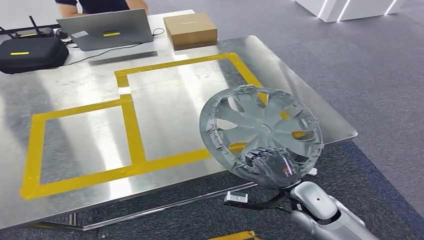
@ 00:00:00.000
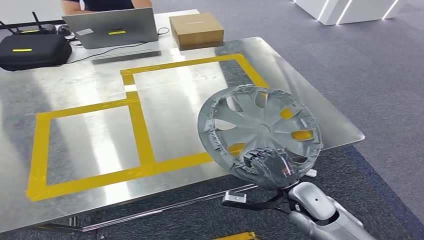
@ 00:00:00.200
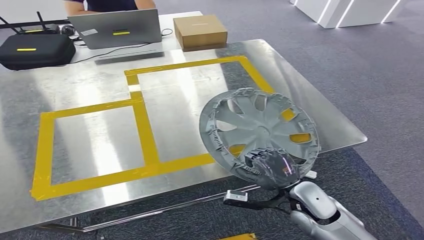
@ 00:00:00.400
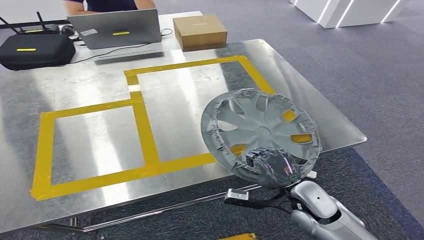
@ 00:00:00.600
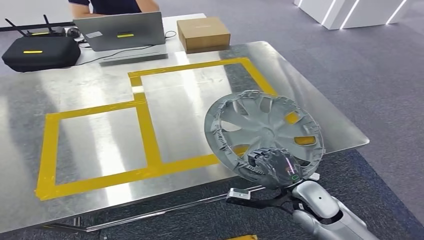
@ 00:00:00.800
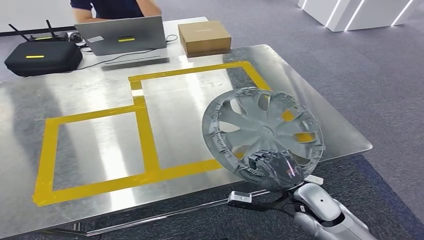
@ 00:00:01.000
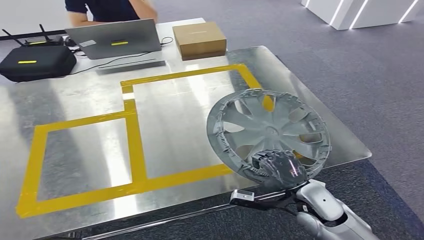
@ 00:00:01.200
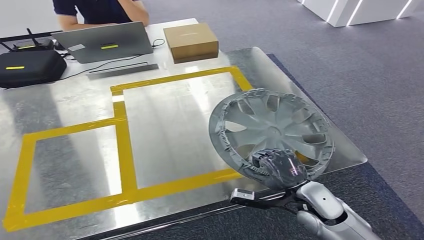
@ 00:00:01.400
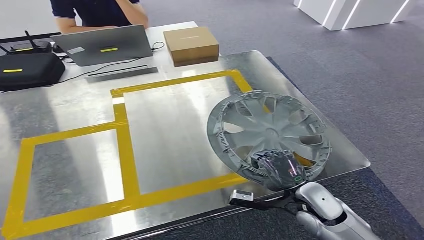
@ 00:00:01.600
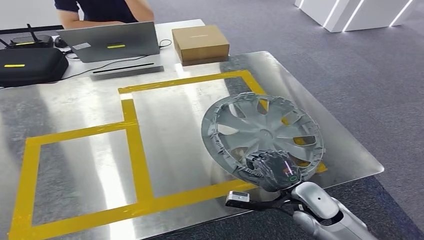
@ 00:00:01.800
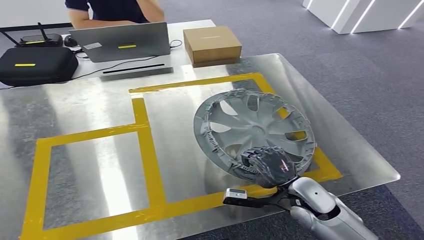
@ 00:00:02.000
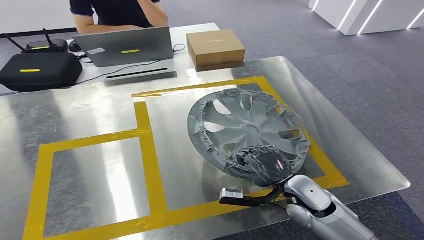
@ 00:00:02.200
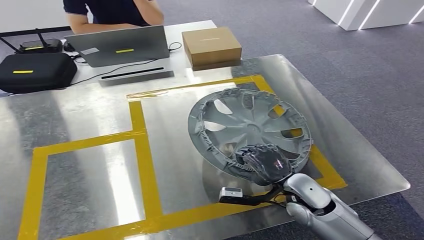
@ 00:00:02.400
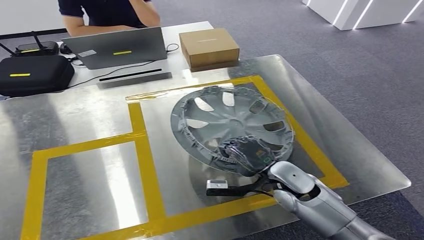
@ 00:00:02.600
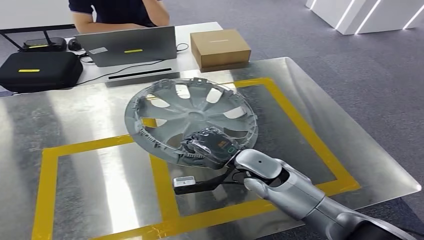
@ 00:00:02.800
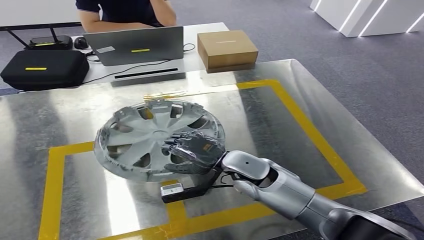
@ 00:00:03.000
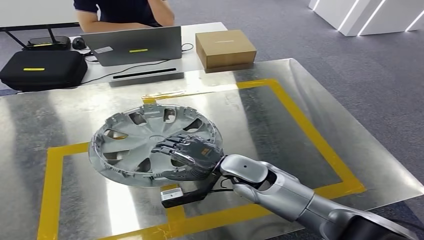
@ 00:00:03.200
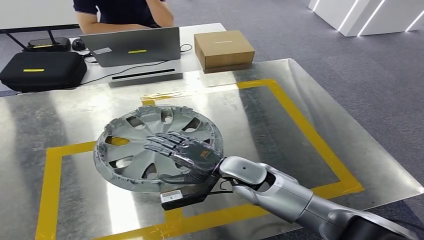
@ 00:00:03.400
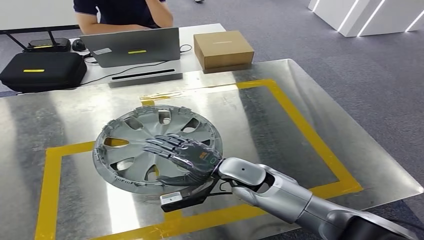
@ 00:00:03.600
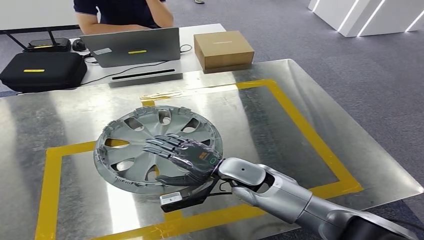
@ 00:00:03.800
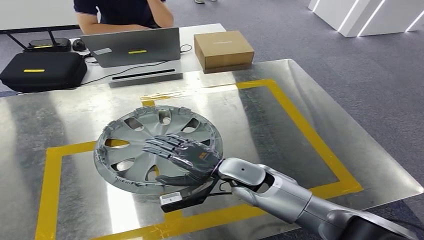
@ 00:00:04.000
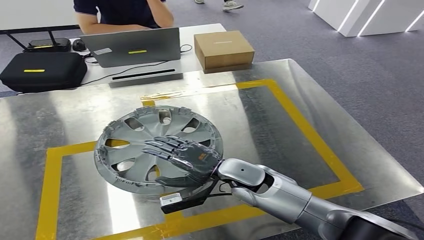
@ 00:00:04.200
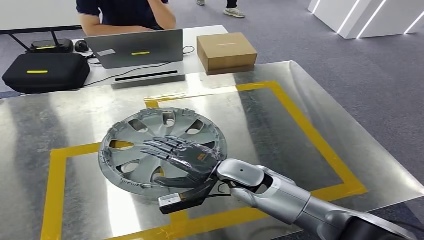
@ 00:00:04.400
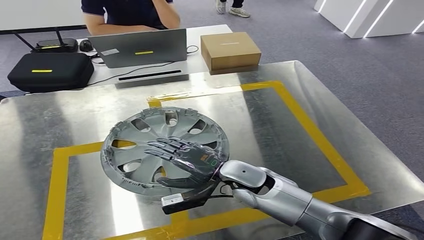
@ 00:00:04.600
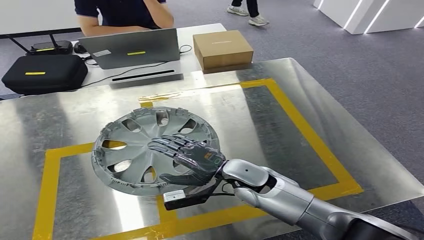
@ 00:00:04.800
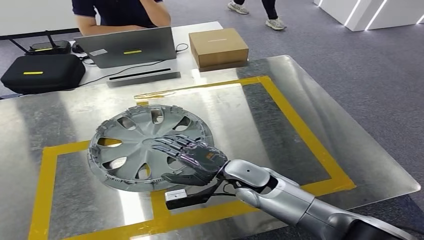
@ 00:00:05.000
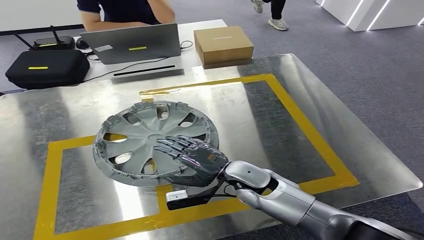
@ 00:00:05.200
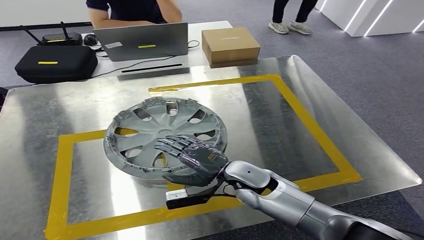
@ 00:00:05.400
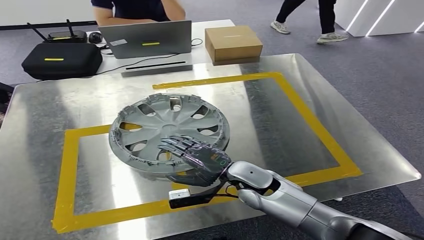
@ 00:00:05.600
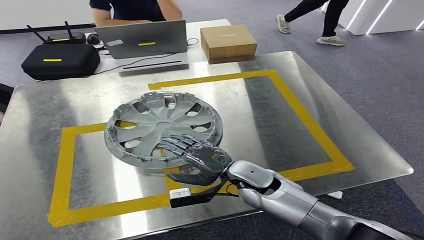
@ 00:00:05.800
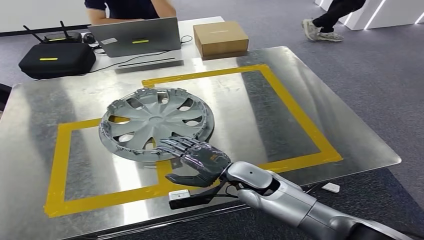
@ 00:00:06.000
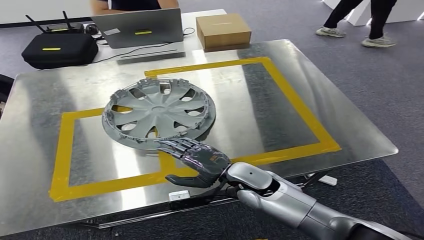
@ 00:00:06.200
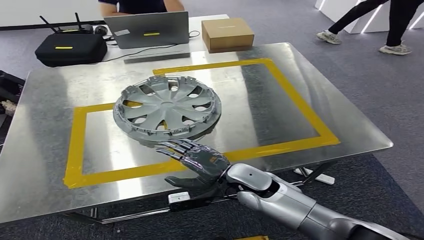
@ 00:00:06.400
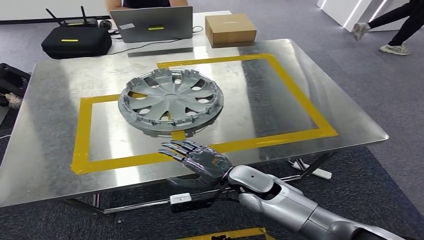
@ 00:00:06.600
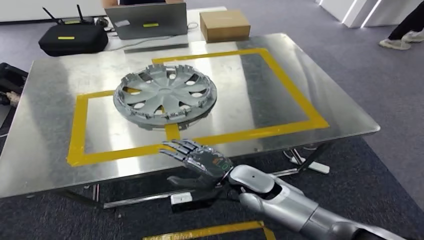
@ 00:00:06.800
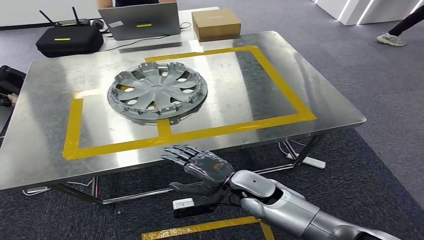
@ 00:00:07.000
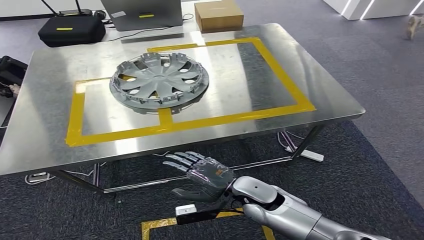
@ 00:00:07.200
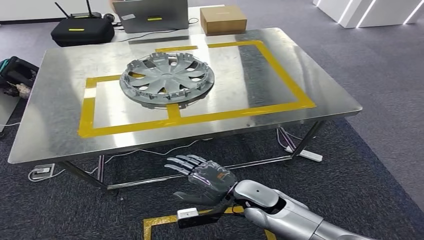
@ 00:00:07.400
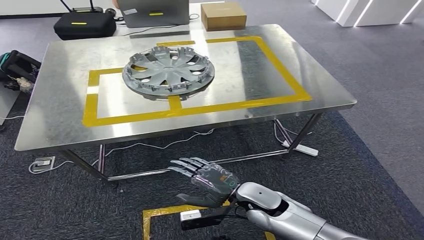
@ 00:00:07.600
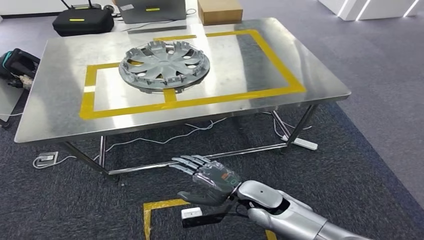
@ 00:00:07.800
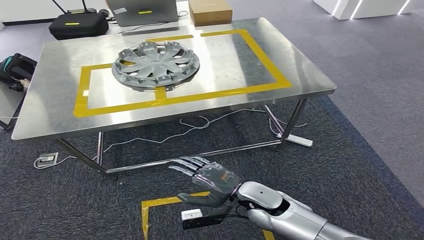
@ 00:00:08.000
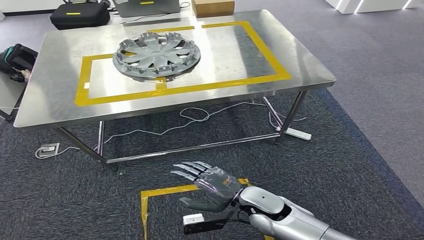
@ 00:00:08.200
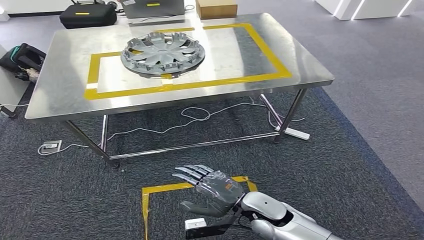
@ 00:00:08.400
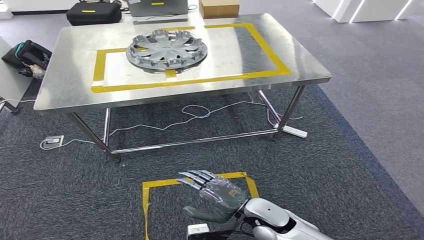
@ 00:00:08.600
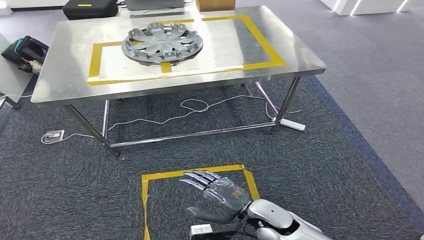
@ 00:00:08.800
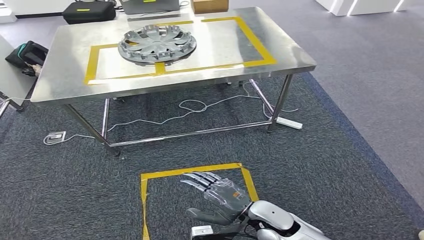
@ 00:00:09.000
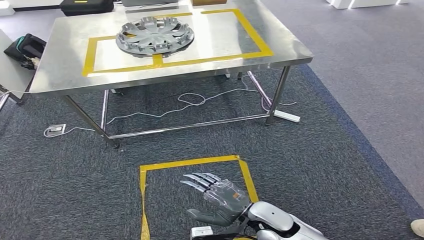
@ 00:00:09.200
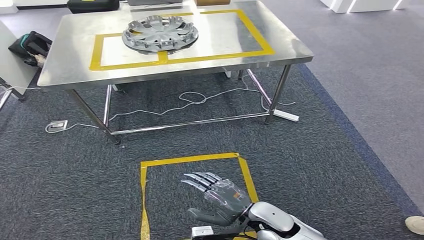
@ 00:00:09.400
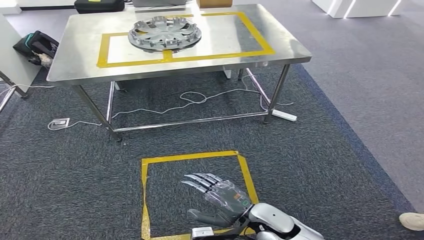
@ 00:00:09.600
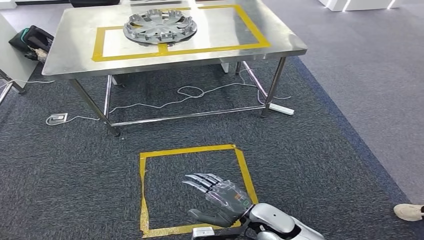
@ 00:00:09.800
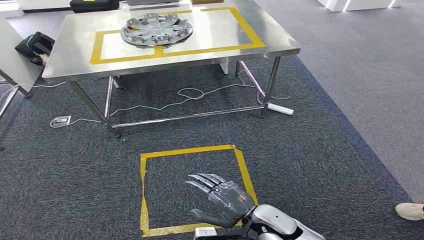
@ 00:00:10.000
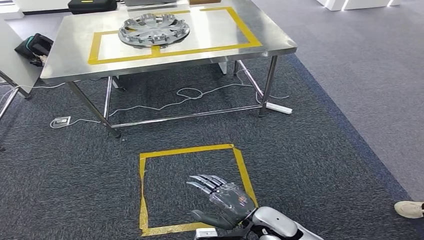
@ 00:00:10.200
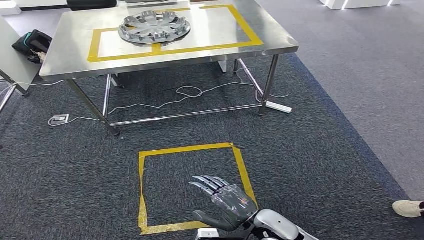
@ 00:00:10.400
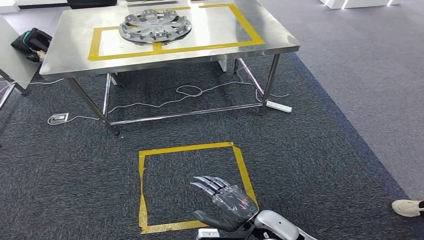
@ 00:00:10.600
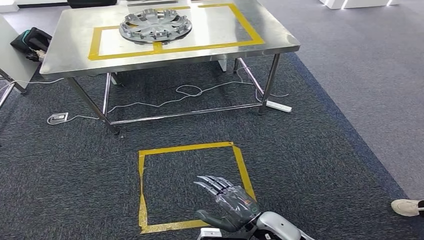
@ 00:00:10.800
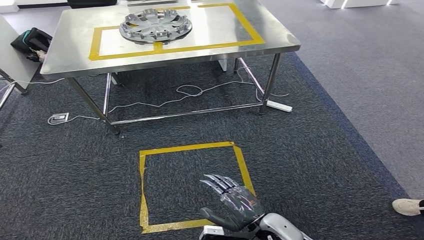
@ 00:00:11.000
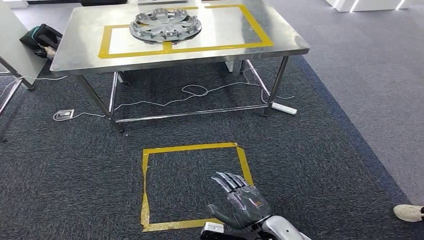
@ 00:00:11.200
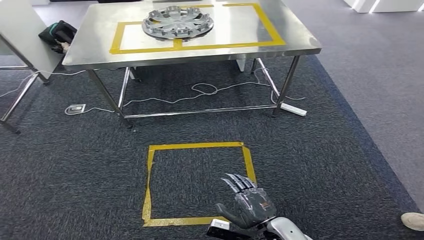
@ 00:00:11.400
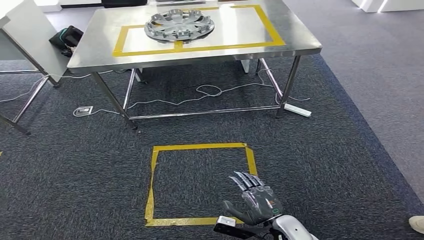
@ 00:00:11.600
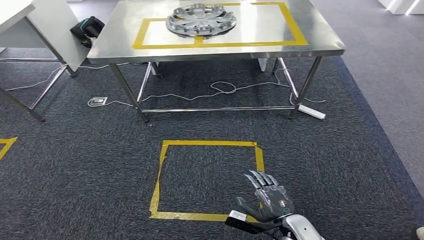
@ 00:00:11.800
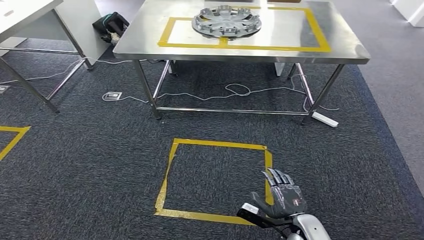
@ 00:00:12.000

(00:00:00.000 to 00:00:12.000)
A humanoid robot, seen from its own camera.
Step, 00:00:00.000 - 00:00:07.000: Insert the small parts into the corresponding holes on the workbench.
00:00:03.000 - 00:00:04.400: The hands move only a little.

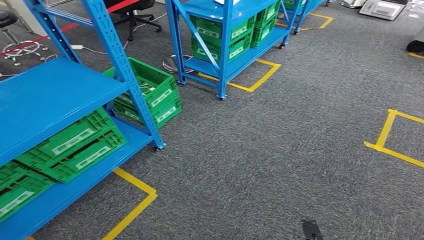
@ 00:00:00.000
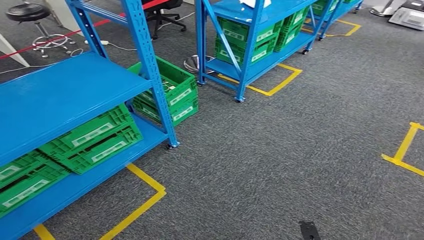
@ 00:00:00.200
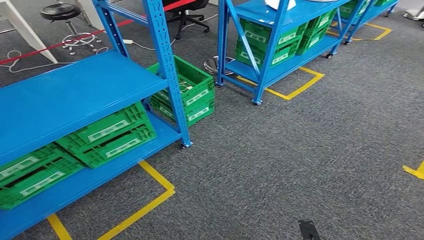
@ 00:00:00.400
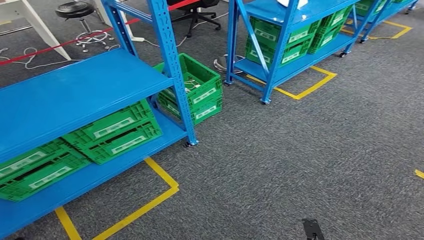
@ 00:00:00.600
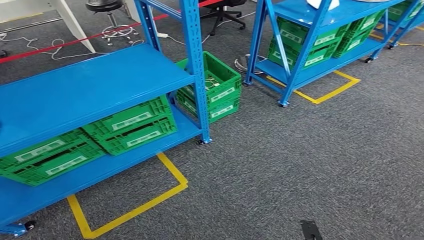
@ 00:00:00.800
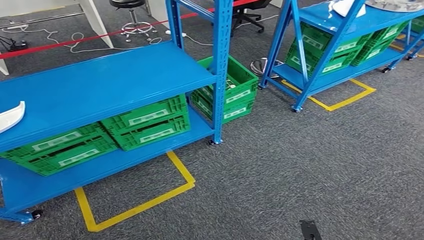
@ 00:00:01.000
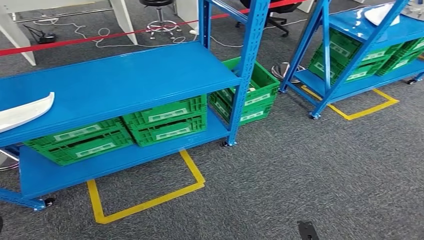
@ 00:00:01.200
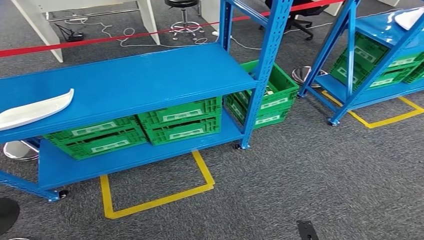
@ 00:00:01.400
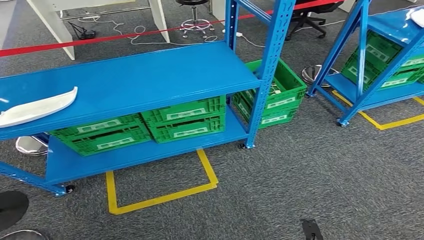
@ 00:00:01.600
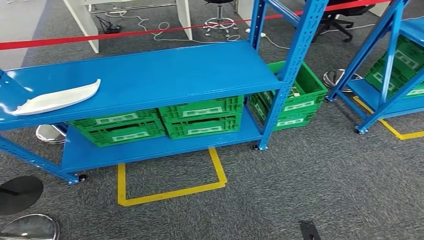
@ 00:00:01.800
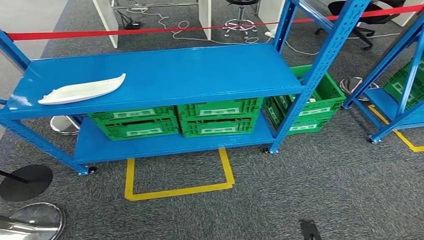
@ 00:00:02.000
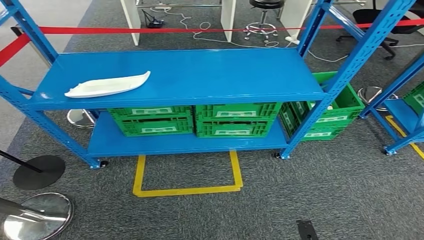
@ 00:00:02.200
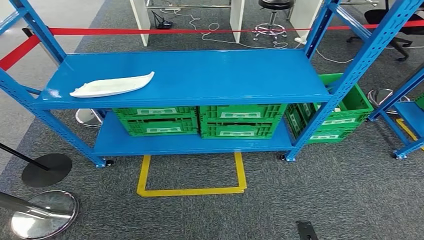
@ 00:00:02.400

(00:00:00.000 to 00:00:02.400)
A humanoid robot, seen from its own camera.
Step, 00:00:00.000 - 00:00:02.400: Move to the initial position at the workbench.
